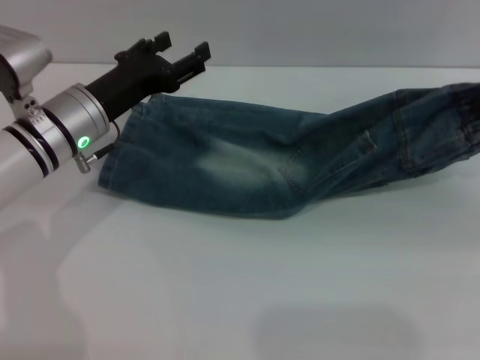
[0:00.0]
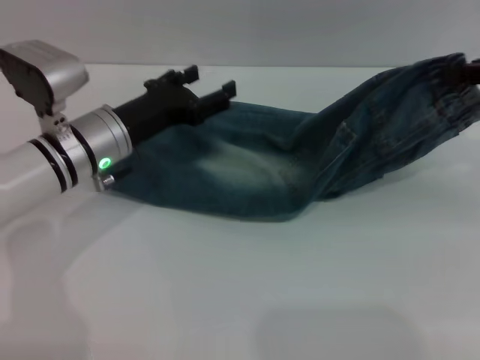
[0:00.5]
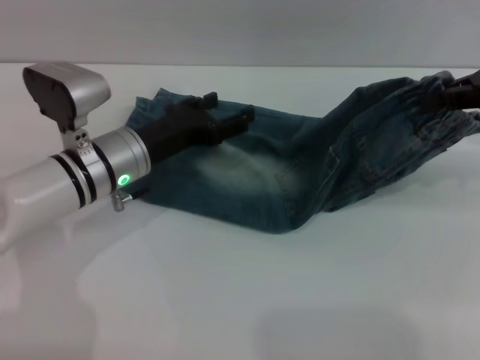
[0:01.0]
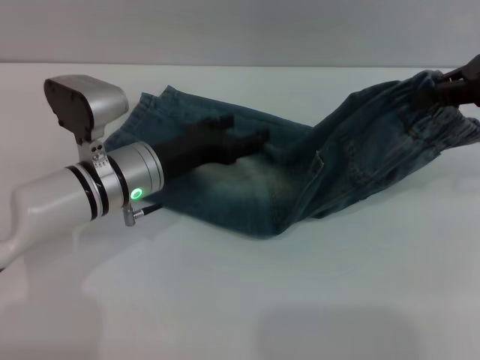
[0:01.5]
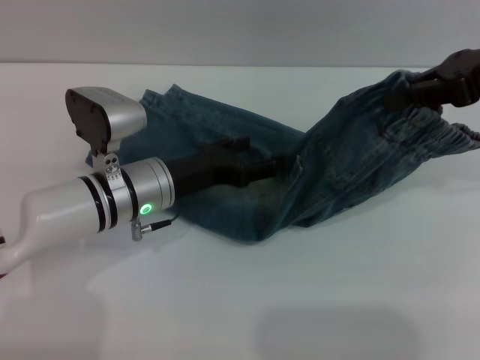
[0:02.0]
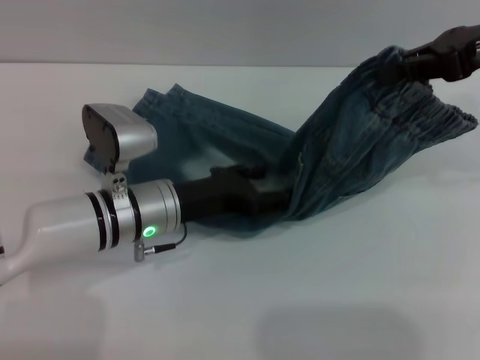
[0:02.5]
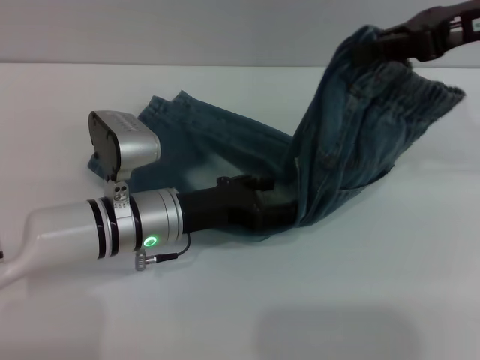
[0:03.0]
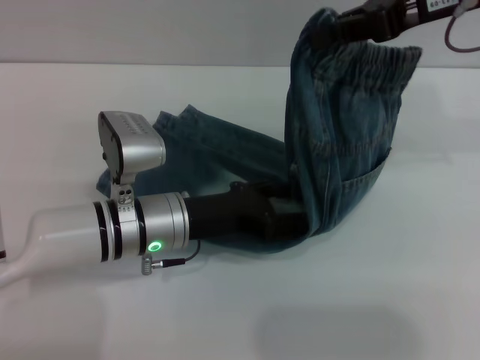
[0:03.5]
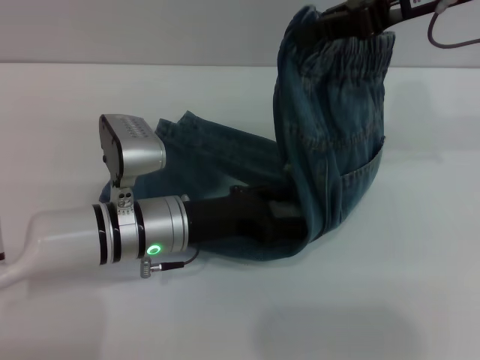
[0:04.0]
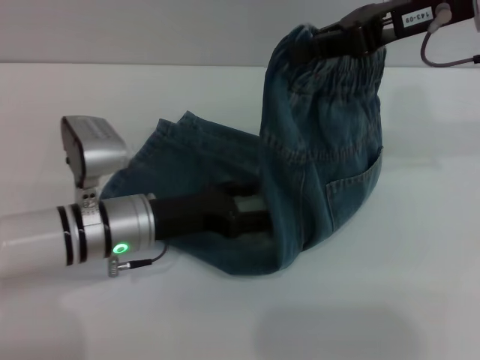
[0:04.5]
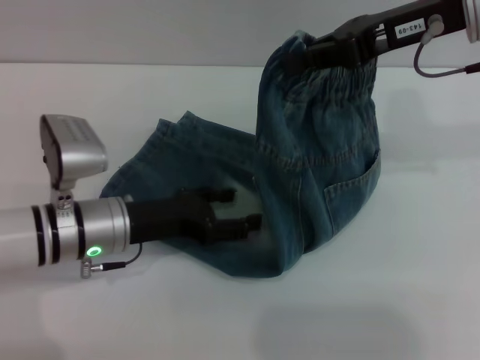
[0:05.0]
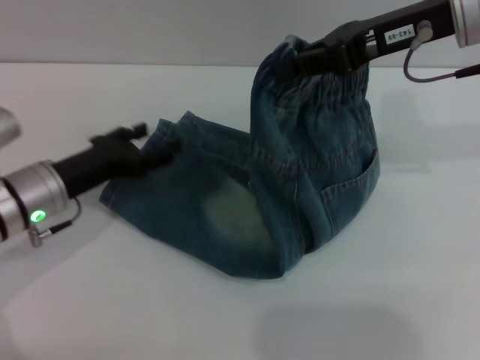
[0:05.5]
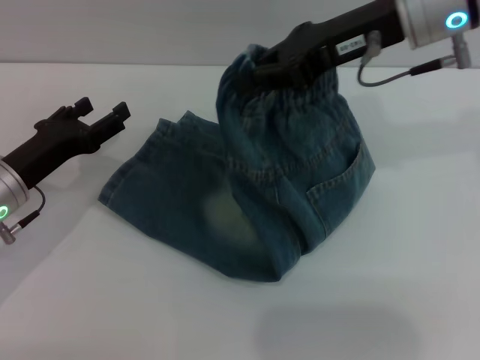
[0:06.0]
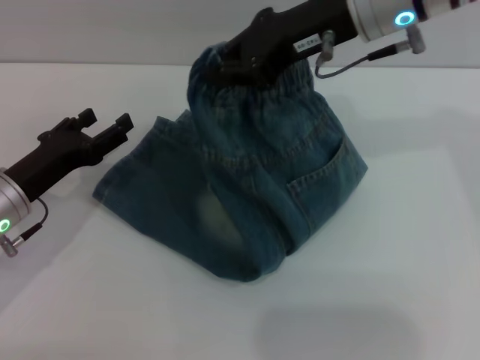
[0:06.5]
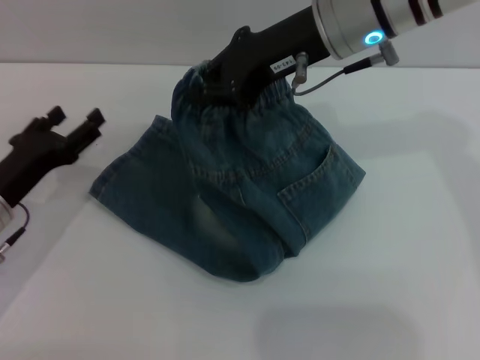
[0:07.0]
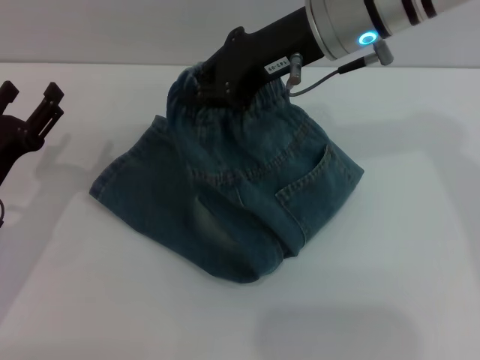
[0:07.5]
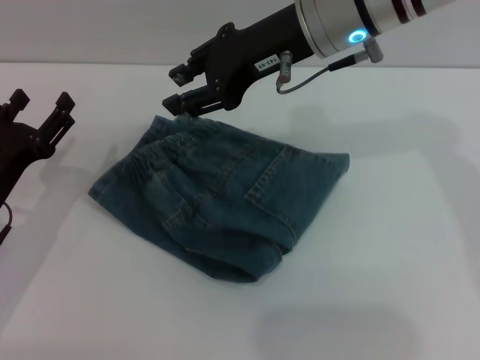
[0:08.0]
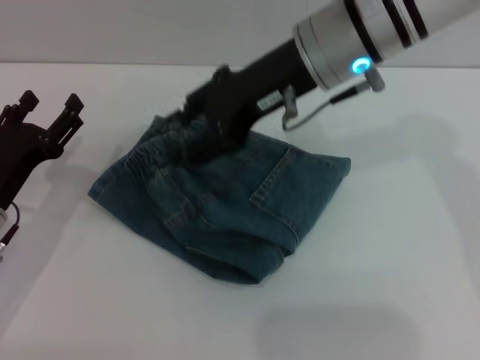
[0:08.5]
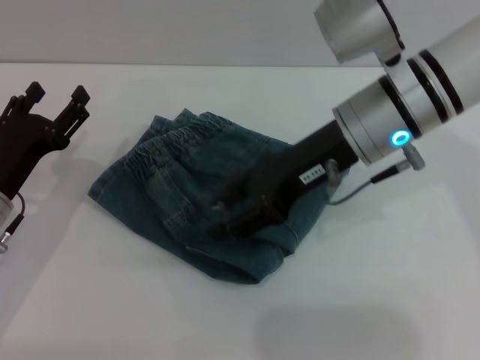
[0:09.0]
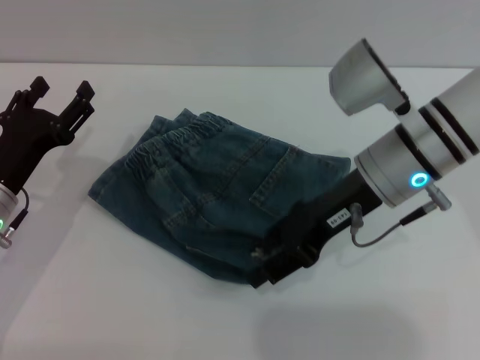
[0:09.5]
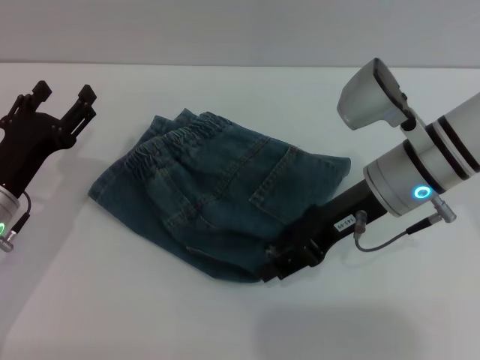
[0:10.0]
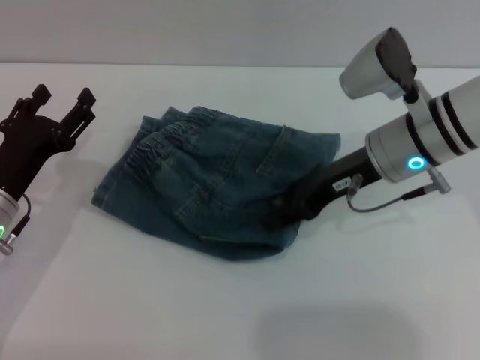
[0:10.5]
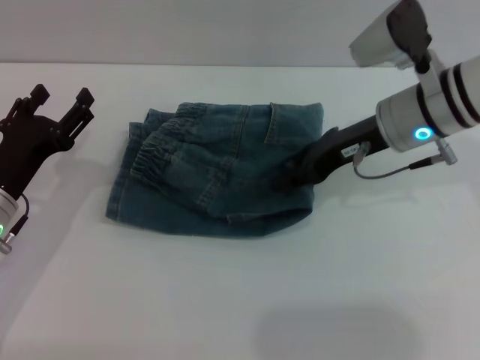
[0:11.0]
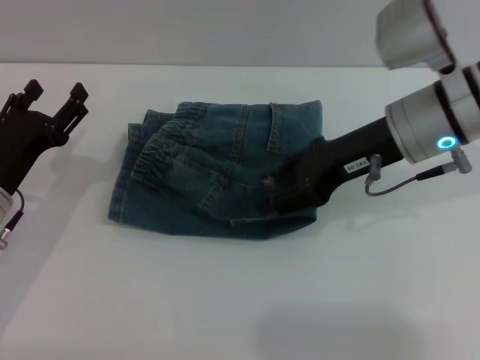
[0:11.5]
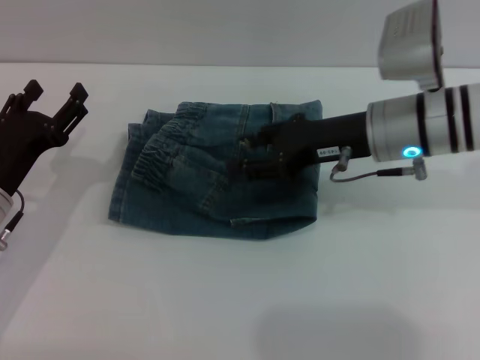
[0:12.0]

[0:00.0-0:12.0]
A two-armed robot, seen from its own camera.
Step, 0:00.0 to 0:08.5: Fold the pants from right to left with the right gripper.
0:00.0 to 0:02.0: The right gripper shifts some 10 cm to the left and upward; the left gripper heads to the right, covering some 5 cm.
0:02.0 to 0:04.0: The right gripper moves to the left, some 5 cm.
0:04.0 to 0:06.0: The left gripper shifts approximately 15 cm to the left; the right gripper travels to the left by some 5 cm.
0:06.0 to 0:08.0: The right gripper travels to the left by approximately 5 cm.
0:08.0 to 0:10.0: The right gripper moves downward, to the right and backward, approximately 15 cm, and opens up.

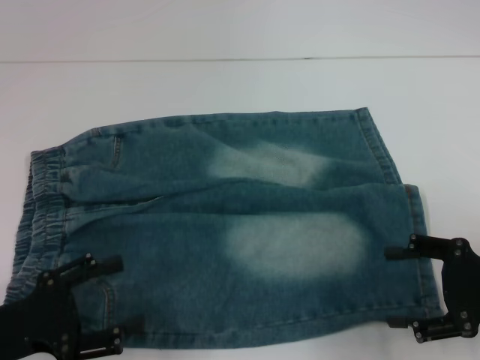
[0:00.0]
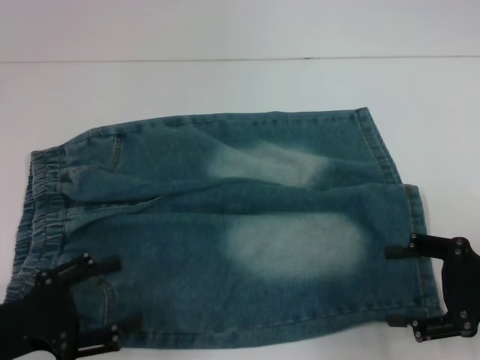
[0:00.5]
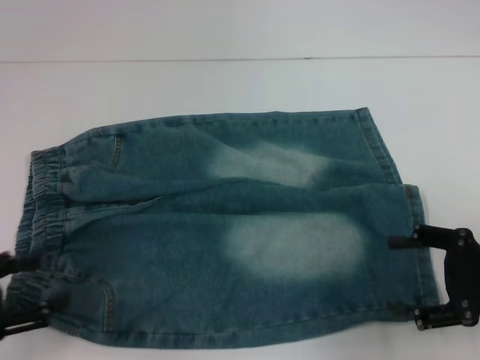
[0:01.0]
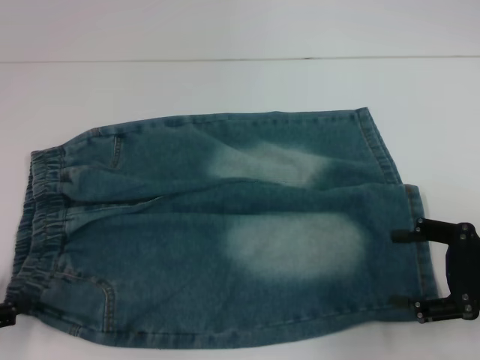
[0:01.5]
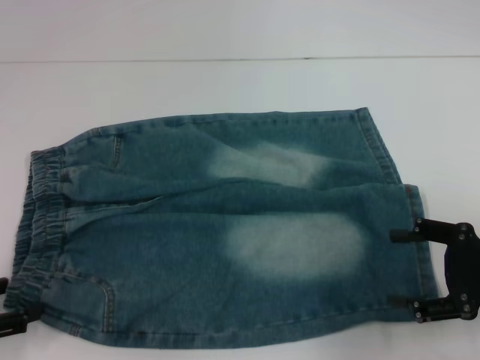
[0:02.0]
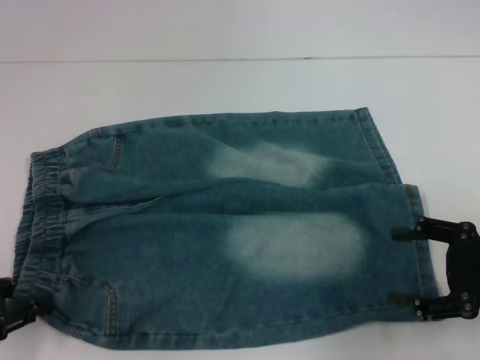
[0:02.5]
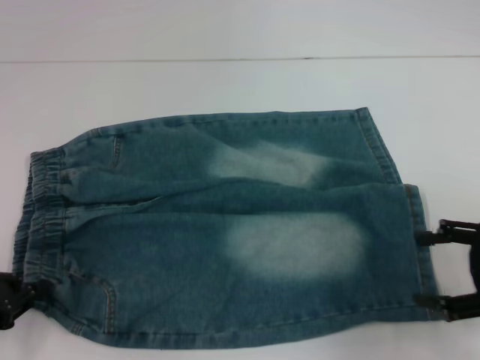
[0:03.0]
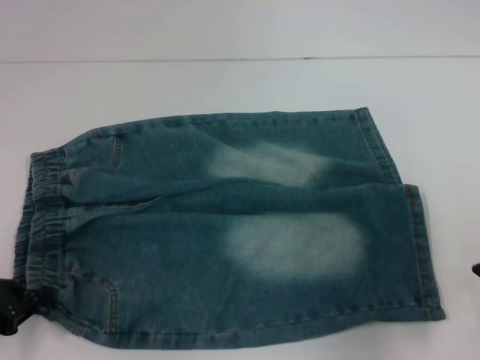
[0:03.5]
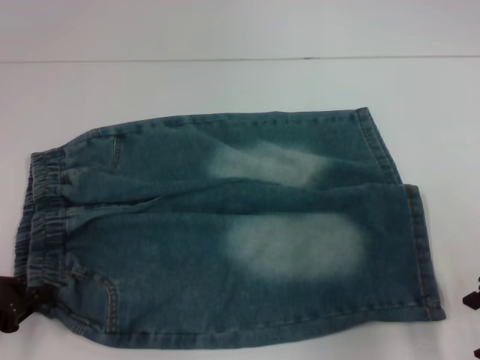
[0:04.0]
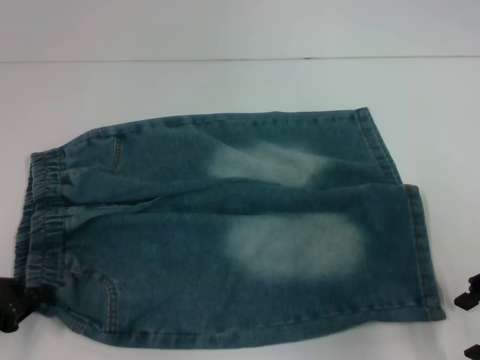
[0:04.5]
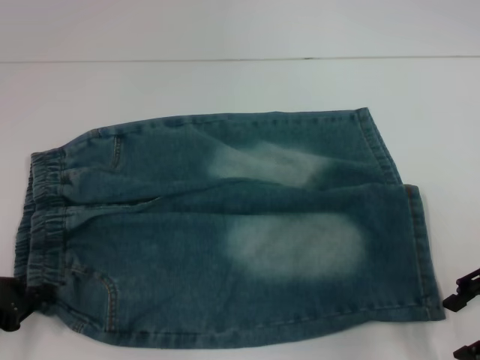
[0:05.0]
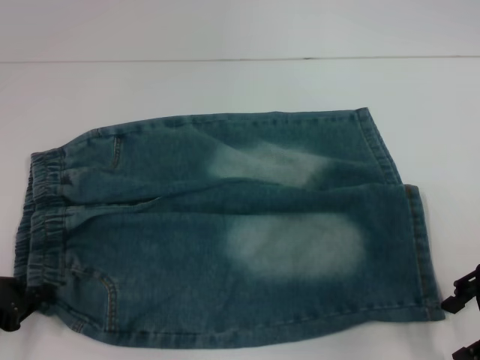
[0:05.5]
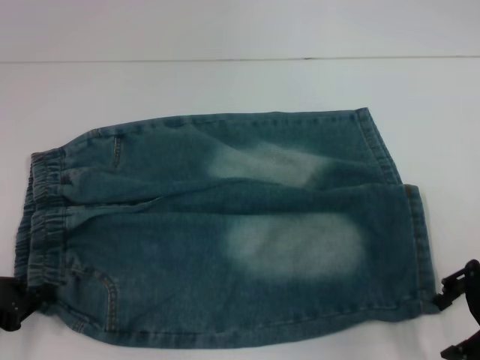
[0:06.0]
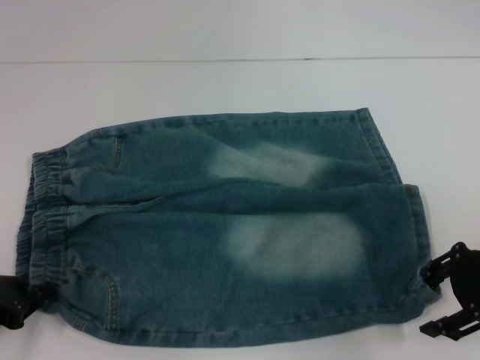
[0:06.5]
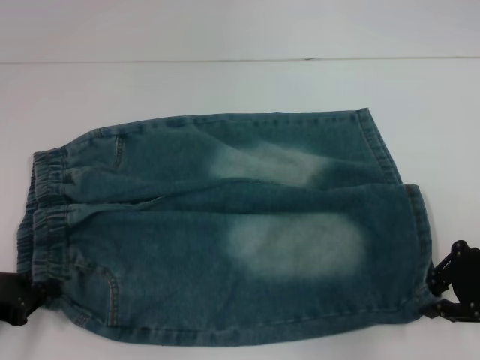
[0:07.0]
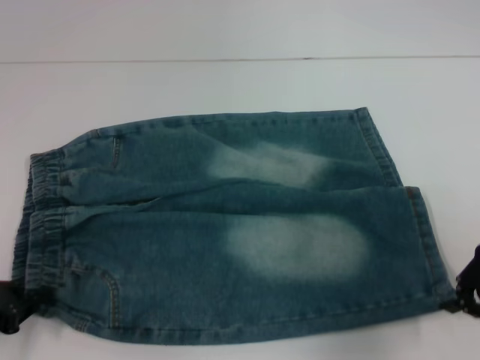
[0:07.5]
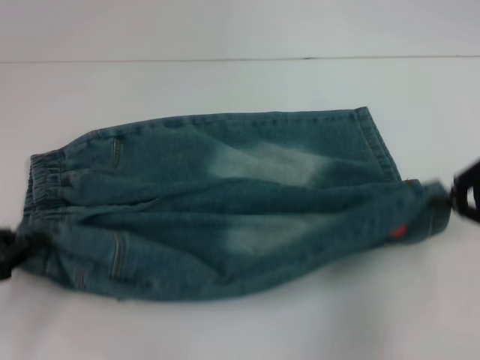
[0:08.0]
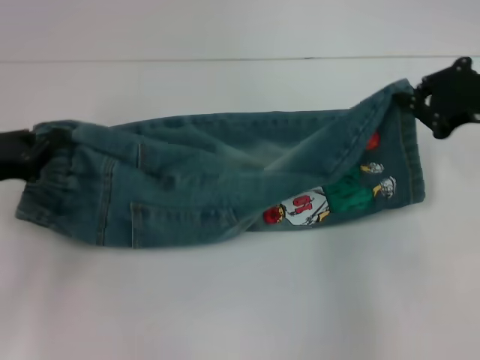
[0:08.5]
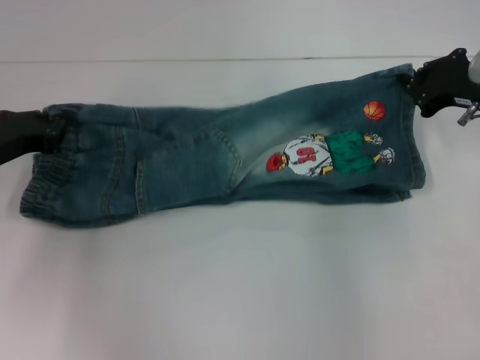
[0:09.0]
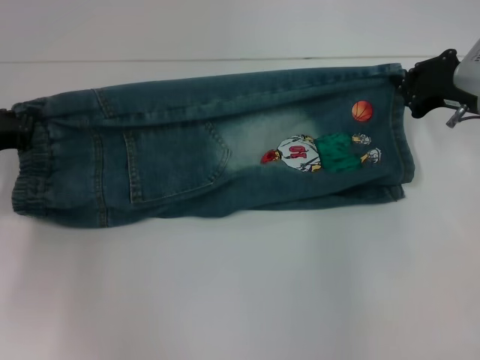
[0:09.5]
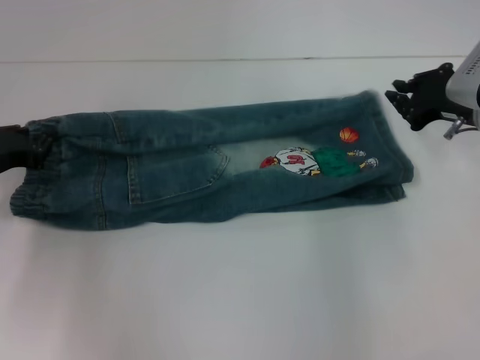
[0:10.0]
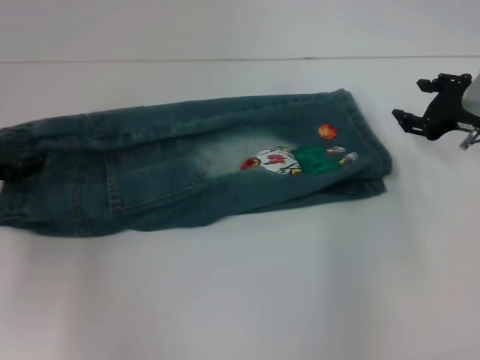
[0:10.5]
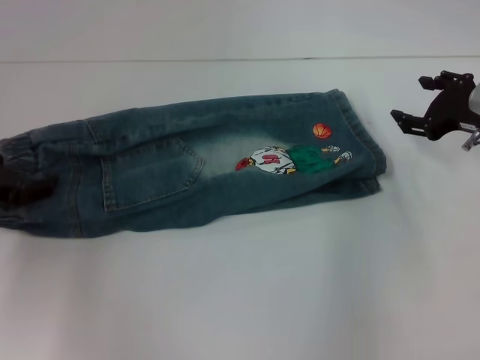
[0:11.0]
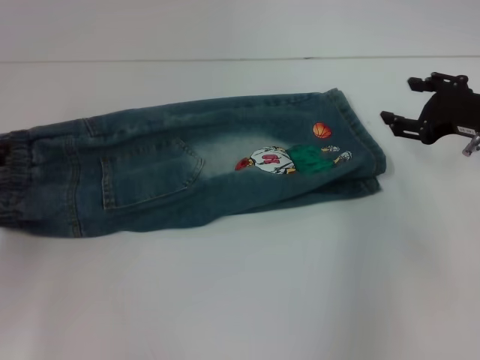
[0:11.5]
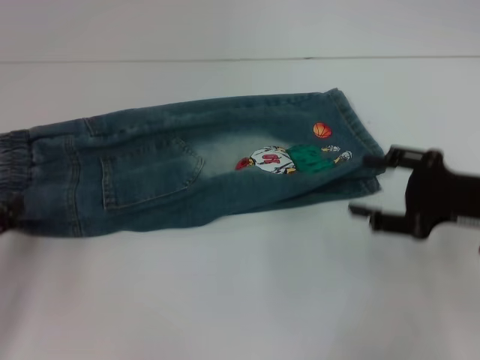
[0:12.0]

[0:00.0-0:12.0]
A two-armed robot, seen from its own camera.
Step, 0:00.0 to 0:03.0: Hold the lower left waistband with your left hand.
Step, 0:03.5 to 0:07.0: Grab the lower right pant leg with your right hand.
Step, 0:07.5 to 0:11.0: Fold upward with your right hand.
0:00.0 to 0:02.0: The left gripper travels to the left by roughly 5 cm.
0:02.0 to 0:04.0: The right gripper heads upward, covering roughly 5 cm. The left gripper closes its fingers.
0:04.0 to 0:06.0: The grippers stay close to where they were, moving slightly.
0:06.0 to 0:08.0: The right gripper changes place by about 5 cm, and closes up.
0:08.0 to 0:10.0: The right gripper goes about 10 cm forward and downward. The left gripper is displaced forward by some 10 cm.
0:10.0 to 0:12.0: The right gripper shifts some 10 cm backward, and opens; the left gripper shifts about 15 cm backward and to the left, and opens its fingers.

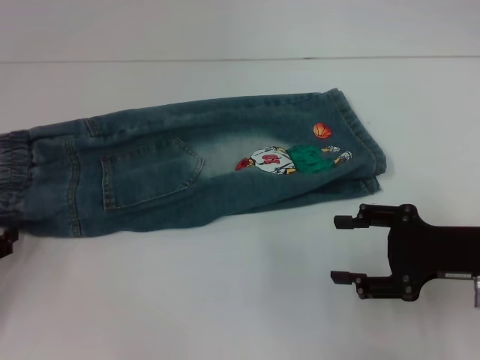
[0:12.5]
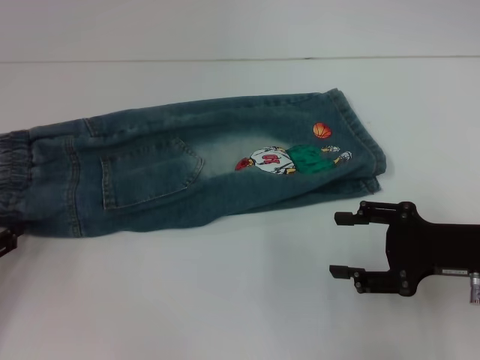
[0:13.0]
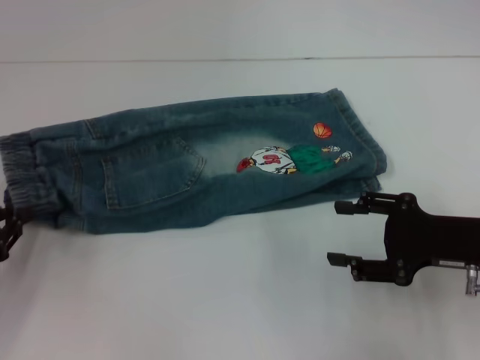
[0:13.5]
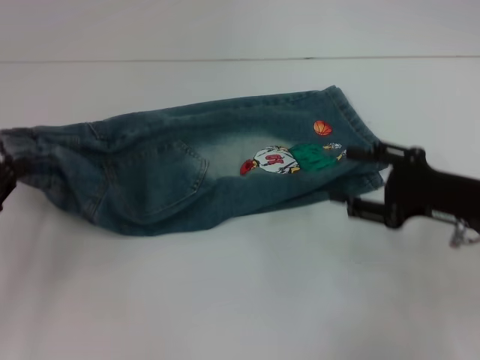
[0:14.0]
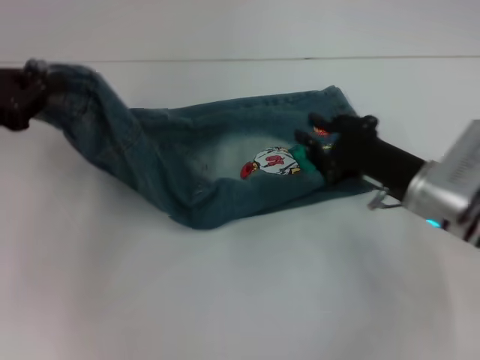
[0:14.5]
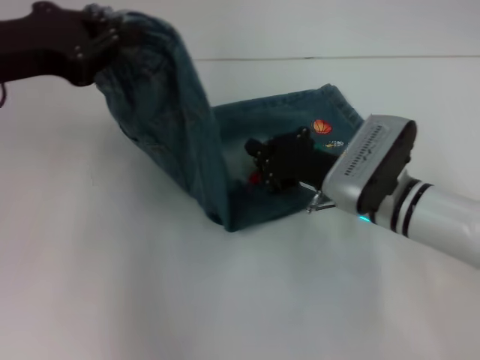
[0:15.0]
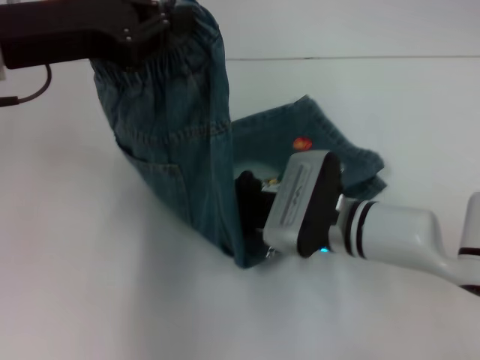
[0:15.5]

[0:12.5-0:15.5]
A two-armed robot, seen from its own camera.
0:12.5 to 0:14.0: The left gripper is displaced upward by roughly 5 cm, and closes.
0:14.0 to 0:15.5: The left gripper moves upward, to the right and forward, about 20 cm. The right gripper heads to the left, covering roughly 20 cm, and closes up.
